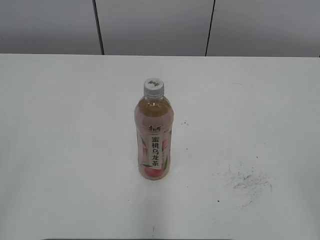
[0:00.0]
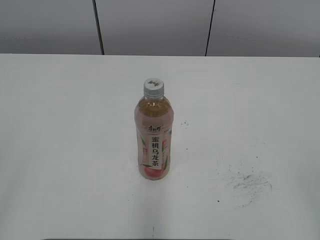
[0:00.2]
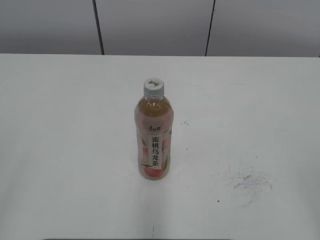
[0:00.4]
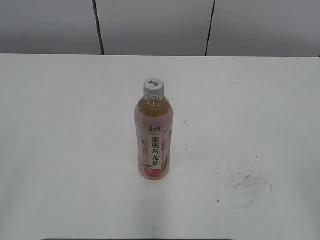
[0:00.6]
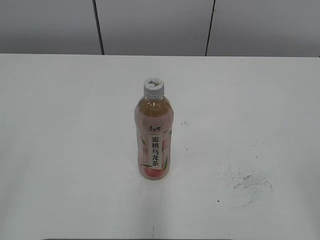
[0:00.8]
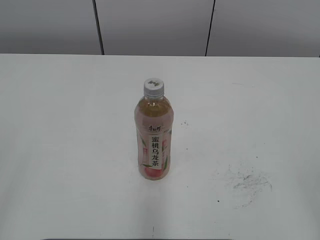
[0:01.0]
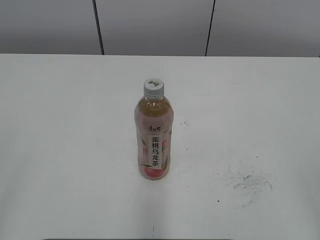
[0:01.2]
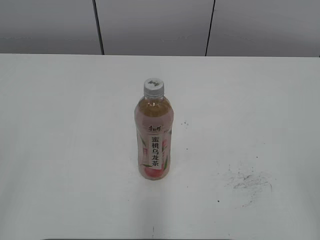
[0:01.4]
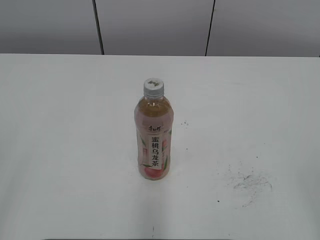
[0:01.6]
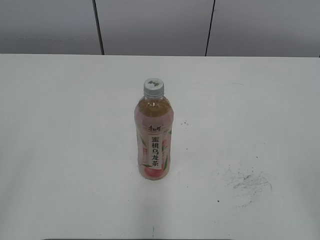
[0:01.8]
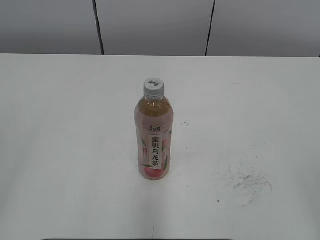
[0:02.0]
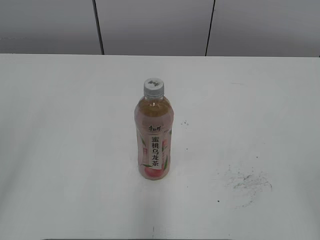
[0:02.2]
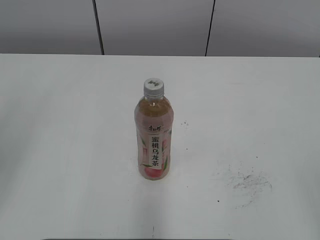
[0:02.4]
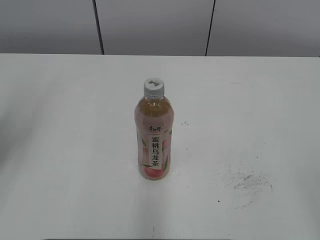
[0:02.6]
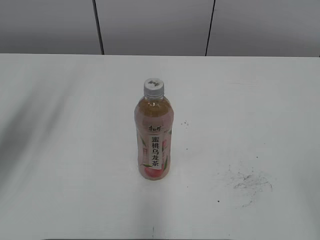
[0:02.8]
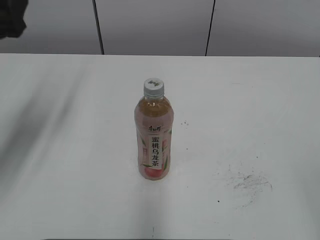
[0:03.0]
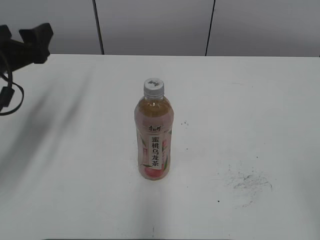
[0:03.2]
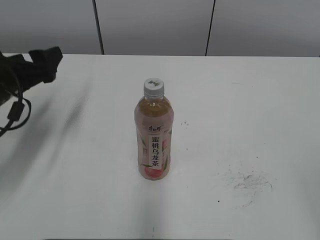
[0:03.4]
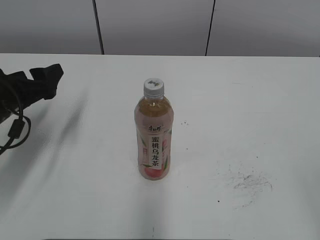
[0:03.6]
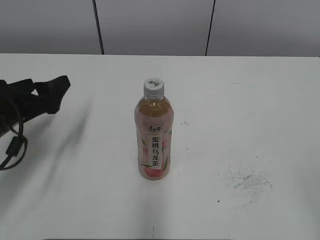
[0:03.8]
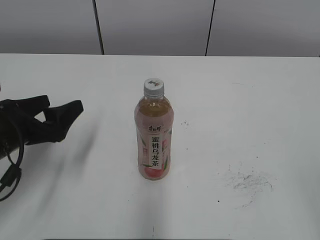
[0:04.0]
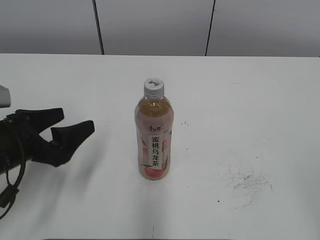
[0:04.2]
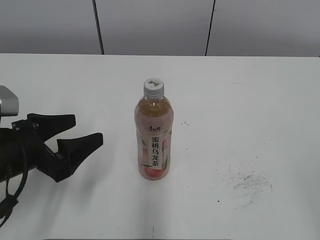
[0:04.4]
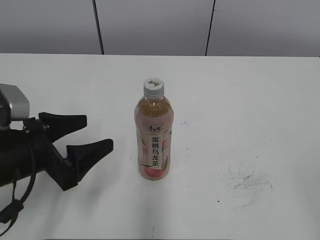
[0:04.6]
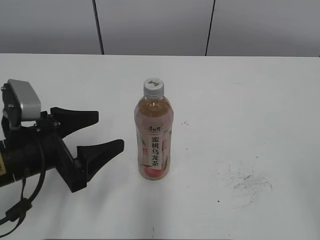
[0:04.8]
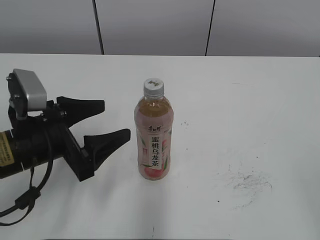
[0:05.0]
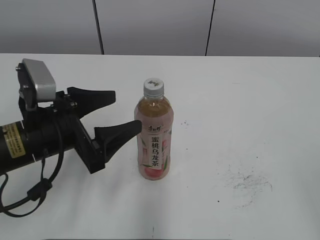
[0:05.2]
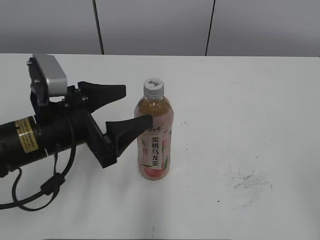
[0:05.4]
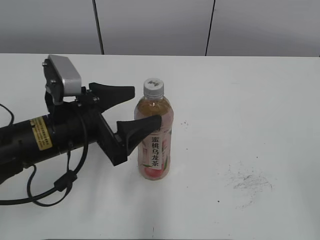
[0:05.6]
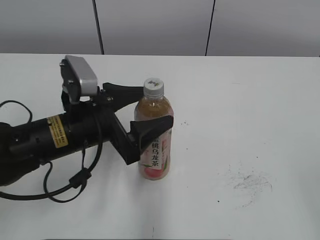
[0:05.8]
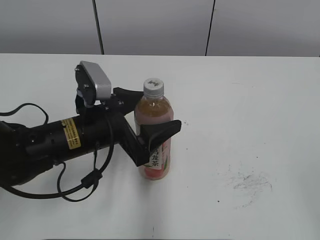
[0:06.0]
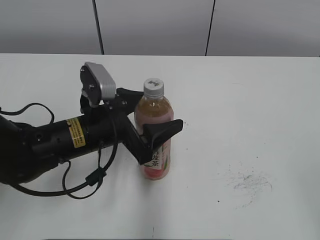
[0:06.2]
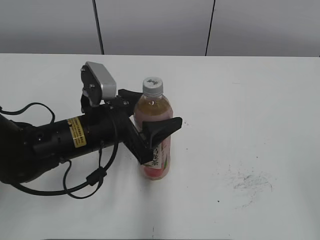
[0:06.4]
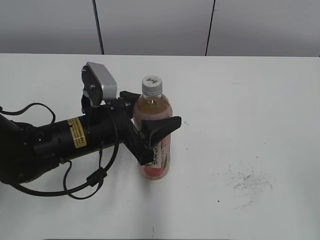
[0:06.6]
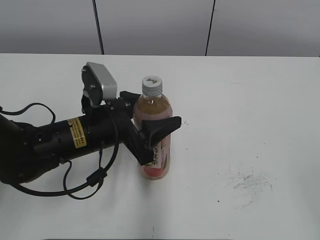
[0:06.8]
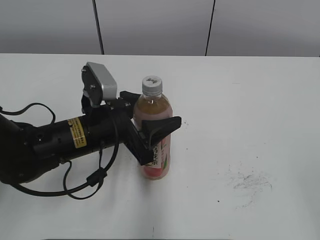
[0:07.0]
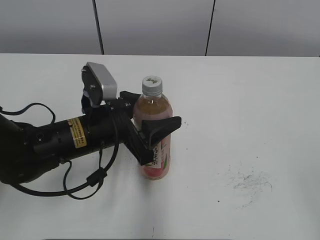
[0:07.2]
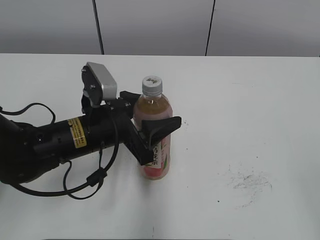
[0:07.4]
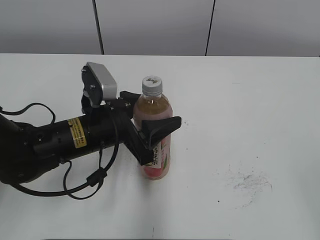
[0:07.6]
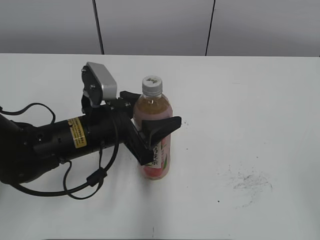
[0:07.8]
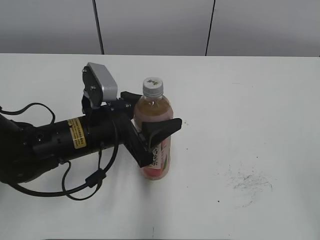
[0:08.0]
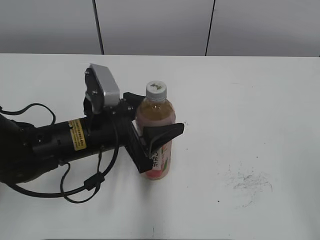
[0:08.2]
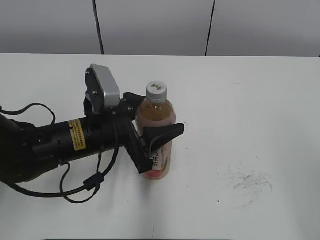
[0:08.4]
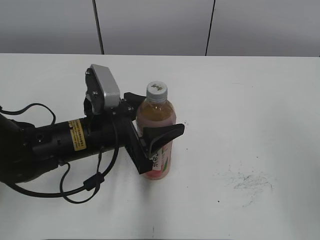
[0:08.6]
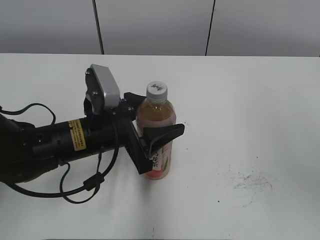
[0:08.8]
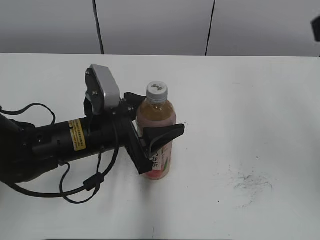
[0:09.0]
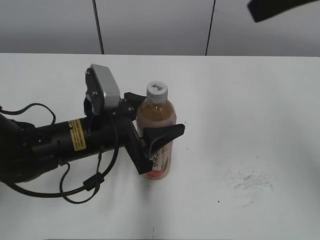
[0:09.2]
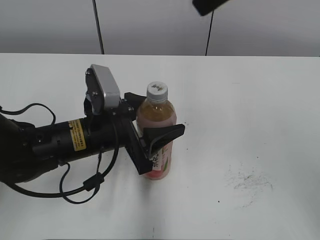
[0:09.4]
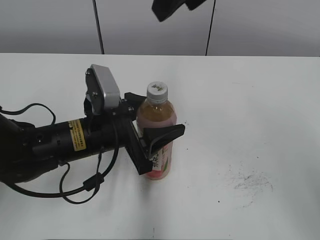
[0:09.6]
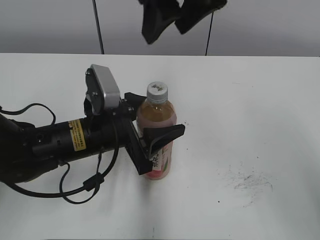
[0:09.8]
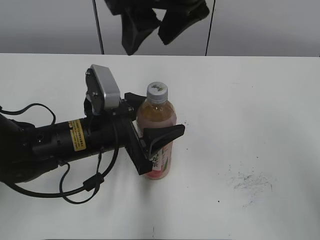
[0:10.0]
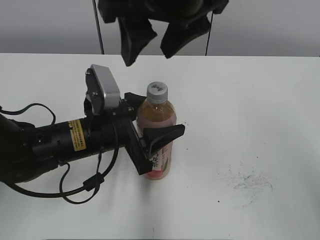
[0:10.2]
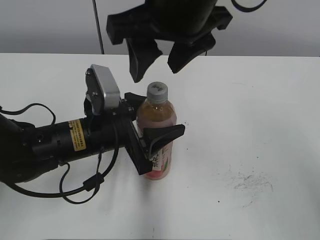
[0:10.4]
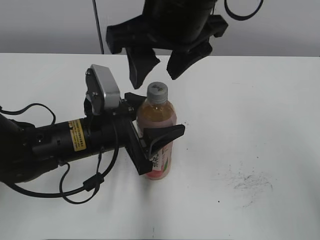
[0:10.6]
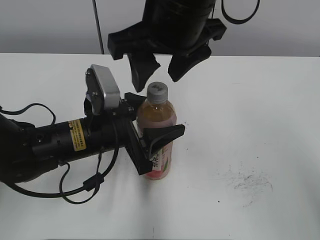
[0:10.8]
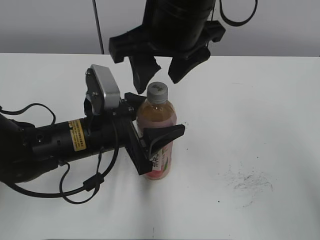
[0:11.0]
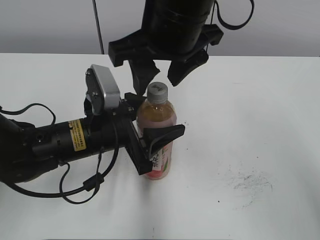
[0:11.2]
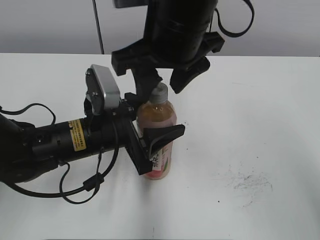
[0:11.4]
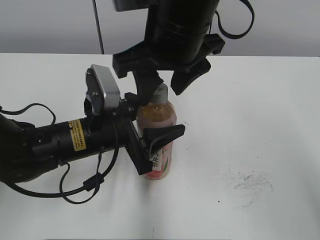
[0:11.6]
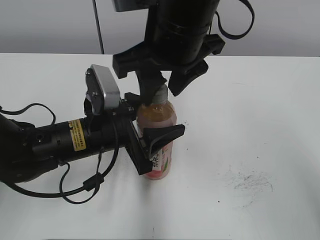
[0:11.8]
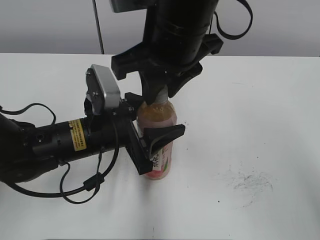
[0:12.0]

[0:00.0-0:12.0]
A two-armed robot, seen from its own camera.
Step, 0:00.0 to 0:06.8: Grab the Peach Oolong Tea with the left hand.
0:01.6 to 0:03.0: The left gripper travels forward by some 30 cm, and opens.
0:03.0 to 0:04.4: The left gripper travels downward and backward by some 15 cm.
0:04.4 to 0:06.0: The left gripper is displaced to the right by roughly 10 cm.
0:06.0 to 0:07.6: The left gripper closes up.
0:07.6 to 0:09.0: The right gripper goes about 25 cm forward and upward.
0:09.0 to 0:10.4: The right gripper travels to the left by roughly 20 cm.
0:10.4 to 0:12.0: The right gripper closes.

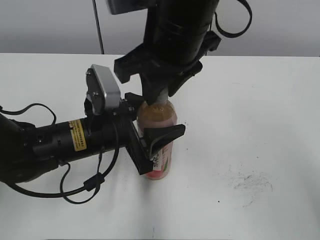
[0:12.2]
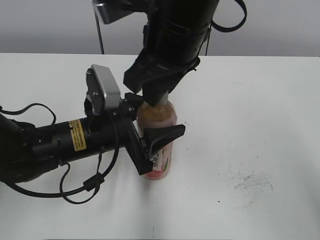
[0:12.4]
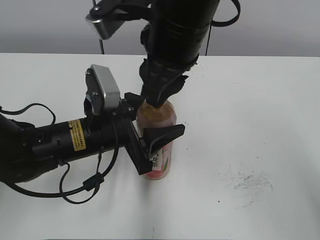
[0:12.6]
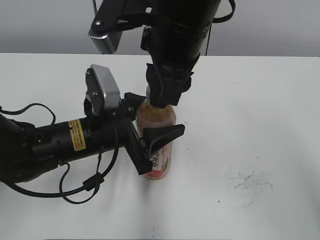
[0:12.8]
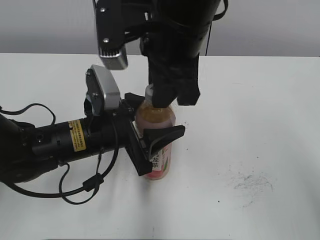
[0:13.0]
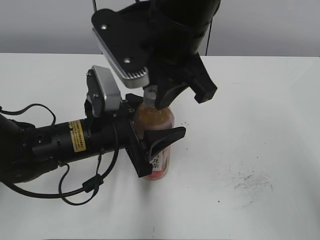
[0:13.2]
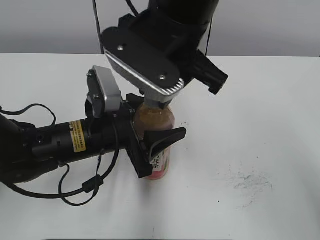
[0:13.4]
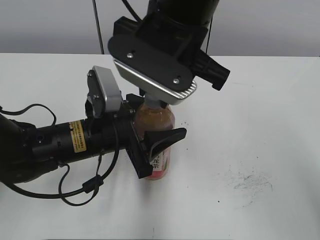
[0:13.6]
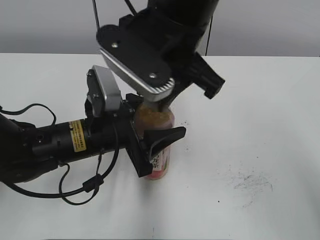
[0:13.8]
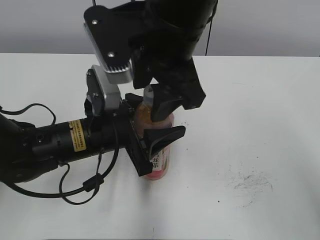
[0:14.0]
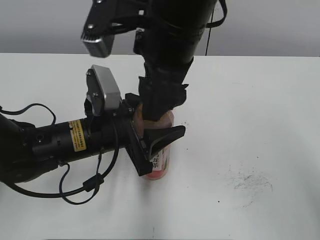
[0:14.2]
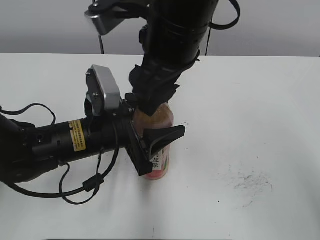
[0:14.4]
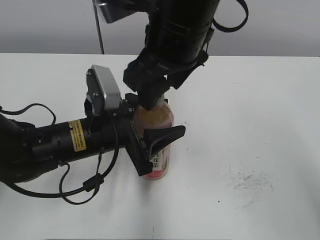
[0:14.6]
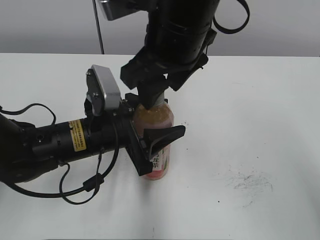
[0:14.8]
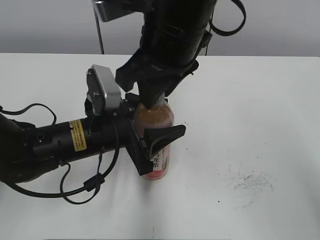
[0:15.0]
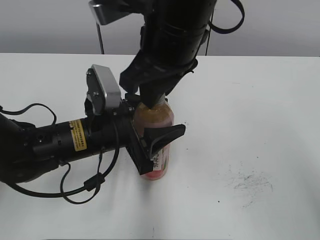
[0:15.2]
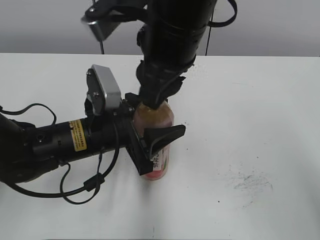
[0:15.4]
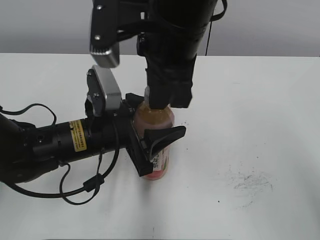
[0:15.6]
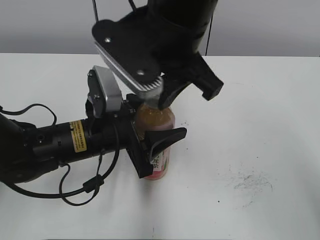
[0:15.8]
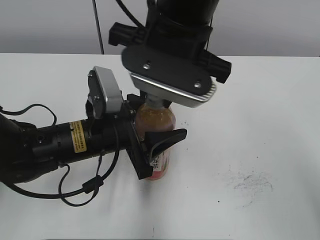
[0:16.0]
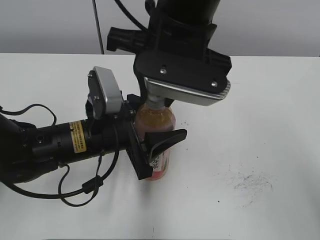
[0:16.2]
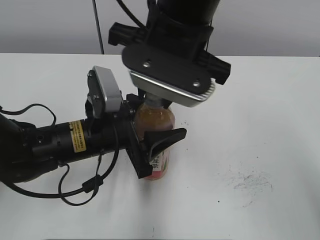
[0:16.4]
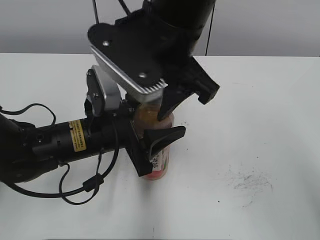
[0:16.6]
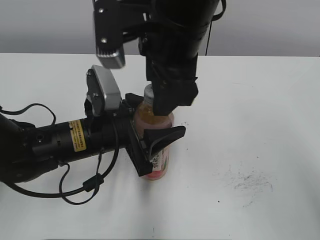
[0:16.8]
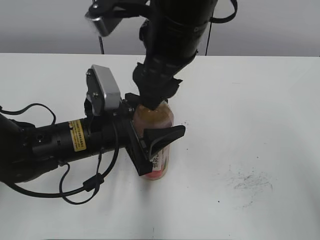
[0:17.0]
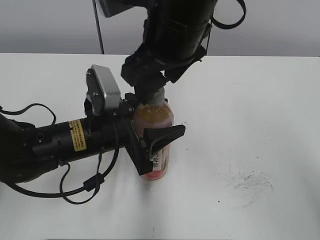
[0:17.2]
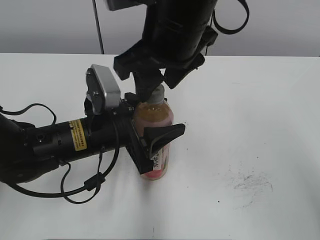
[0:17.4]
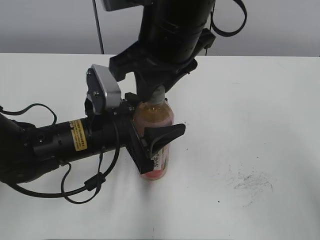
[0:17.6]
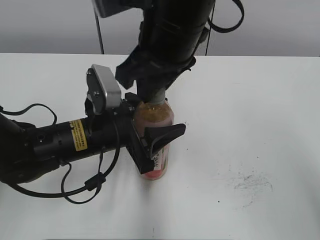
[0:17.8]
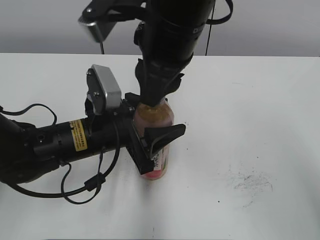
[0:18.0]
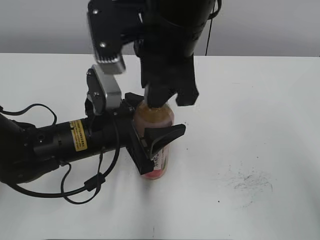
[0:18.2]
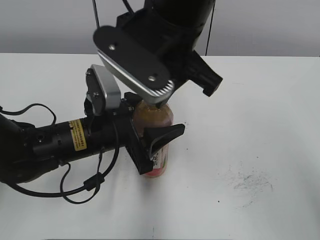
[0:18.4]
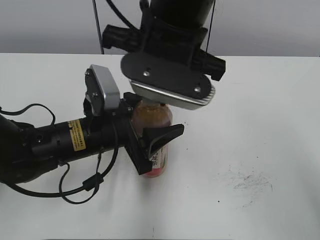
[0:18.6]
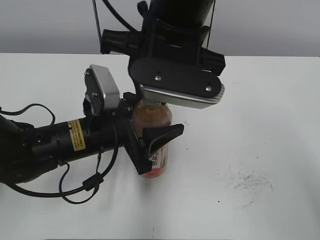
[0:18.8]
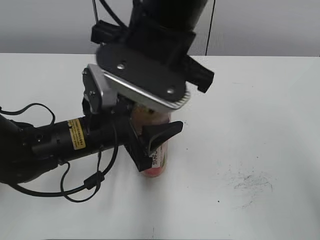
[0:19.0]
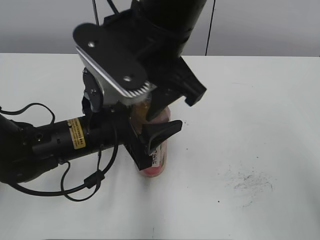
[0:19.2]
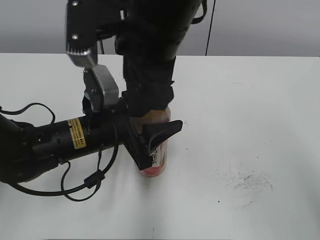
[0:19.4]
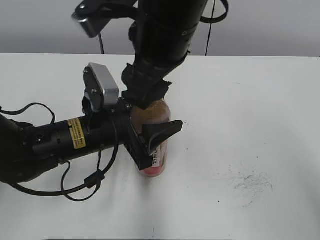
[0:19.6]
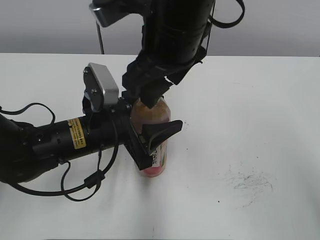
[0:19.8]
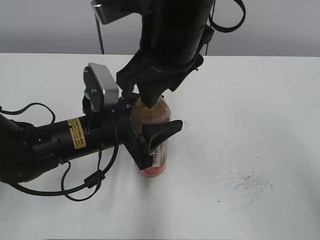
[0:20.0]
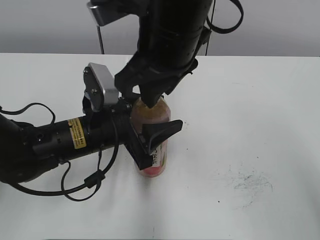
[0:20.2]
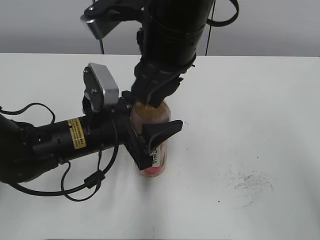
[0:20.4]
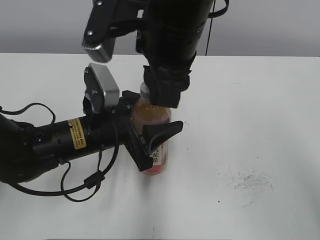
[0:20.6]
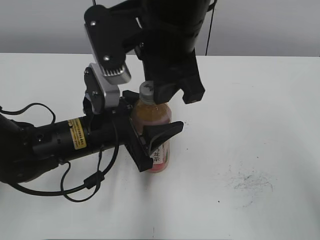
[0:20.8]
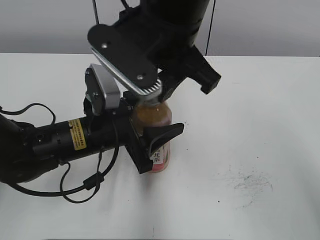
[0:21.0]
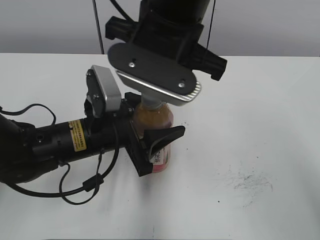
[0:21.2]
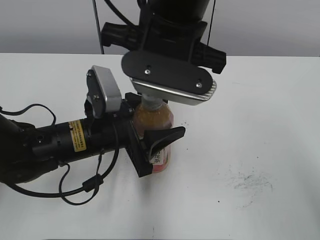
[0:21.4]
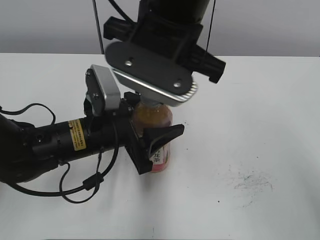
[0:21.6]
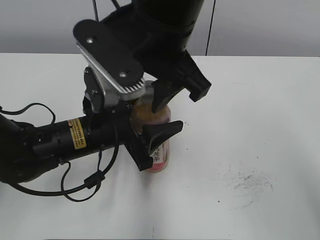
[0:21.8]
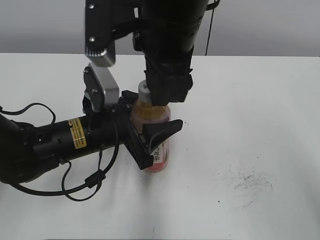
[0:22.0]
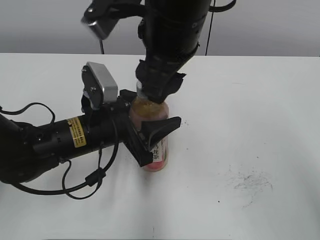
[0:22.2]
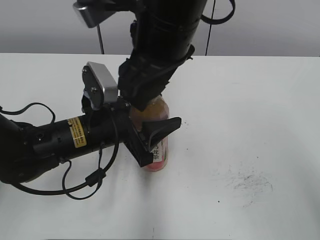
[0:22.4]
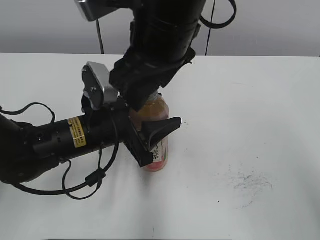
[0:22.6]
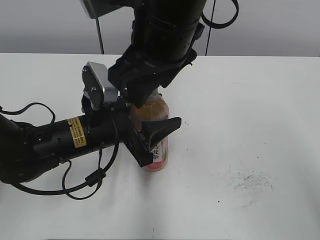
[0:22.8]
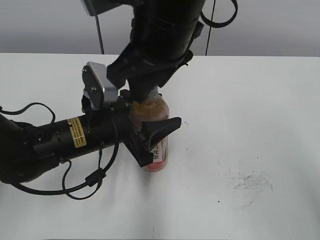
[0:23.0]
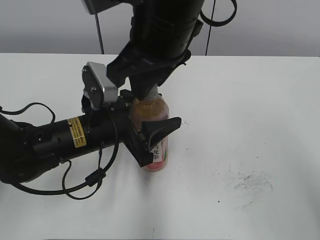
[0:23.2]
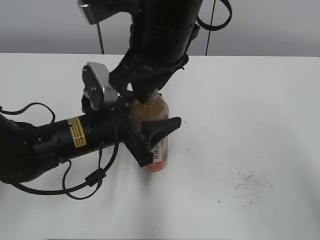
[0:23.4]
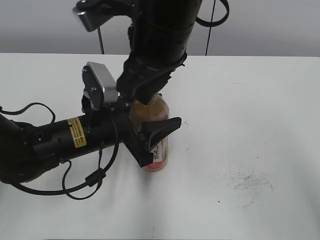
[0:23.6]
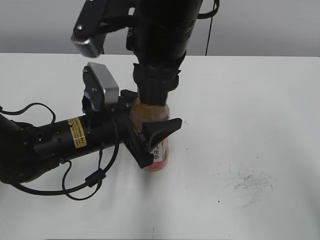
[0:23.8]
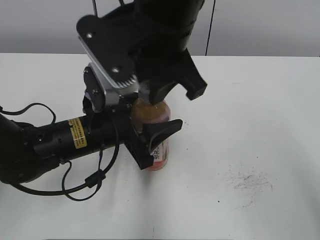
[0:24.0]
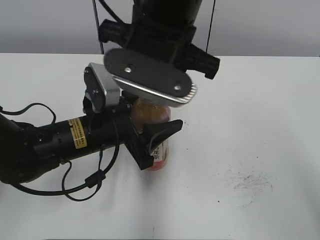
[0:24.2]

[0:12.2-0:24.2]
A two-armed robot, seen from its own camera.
0:13.8 to 0:15.2: The right gripper opens, then closes once more.
0:15.2 to 0:16.6: The right gripper opens.
0:16.6 to 0:18.2: The right gripper closes.
0:18.2 to 0:19.8: The right gripper opens.
0:19.8 to 0:21.2: The right gripper closes its fingers.
0:21.2 to 0:22.6: The right gripper opens.
0:22.6 to 0:24.2: The right gripper closes.
